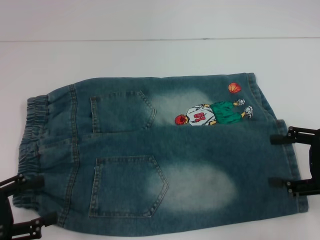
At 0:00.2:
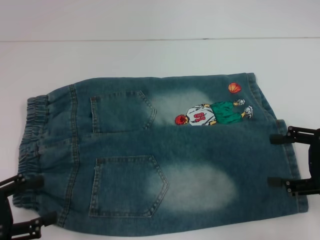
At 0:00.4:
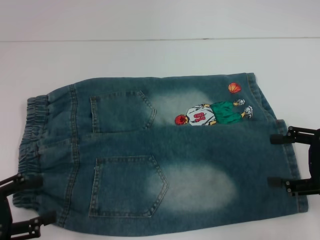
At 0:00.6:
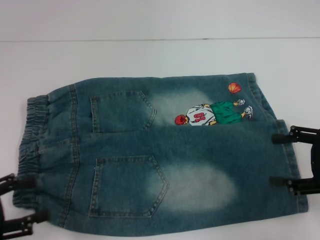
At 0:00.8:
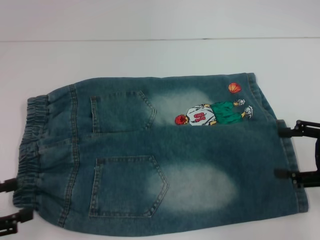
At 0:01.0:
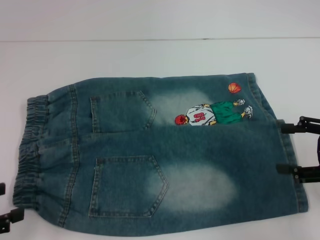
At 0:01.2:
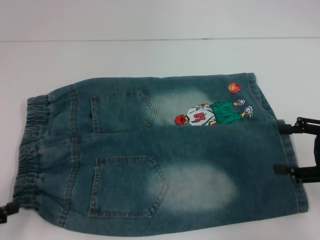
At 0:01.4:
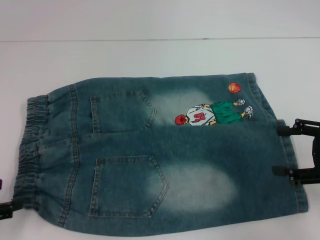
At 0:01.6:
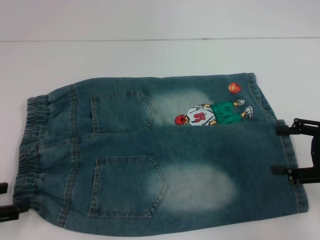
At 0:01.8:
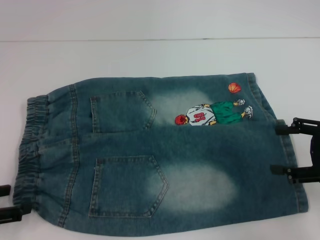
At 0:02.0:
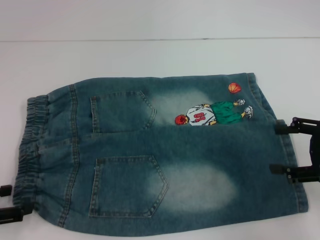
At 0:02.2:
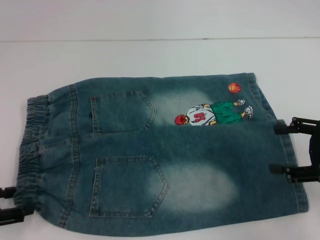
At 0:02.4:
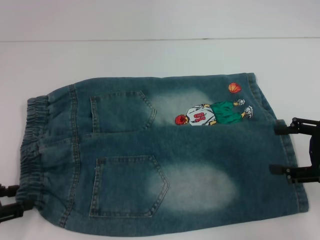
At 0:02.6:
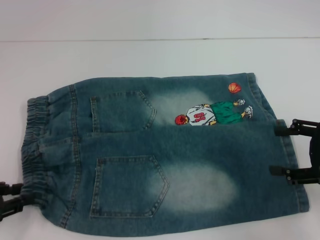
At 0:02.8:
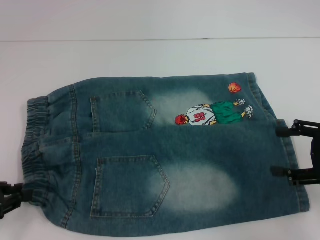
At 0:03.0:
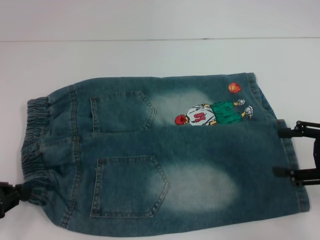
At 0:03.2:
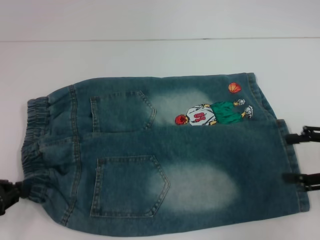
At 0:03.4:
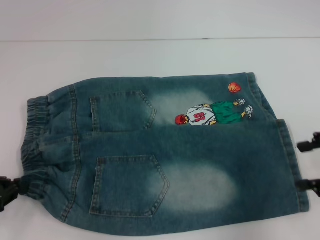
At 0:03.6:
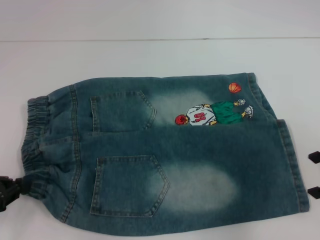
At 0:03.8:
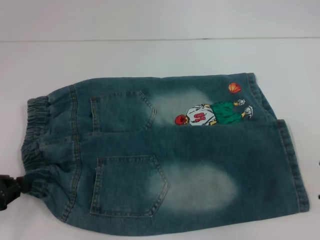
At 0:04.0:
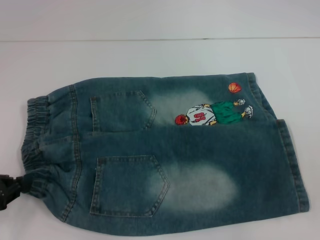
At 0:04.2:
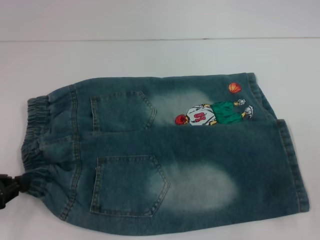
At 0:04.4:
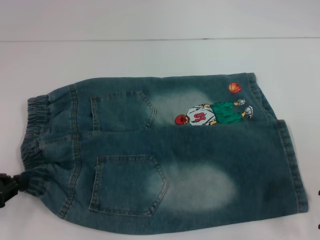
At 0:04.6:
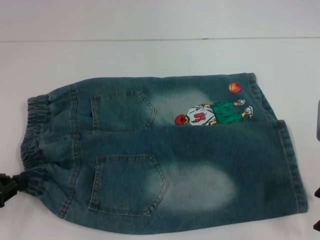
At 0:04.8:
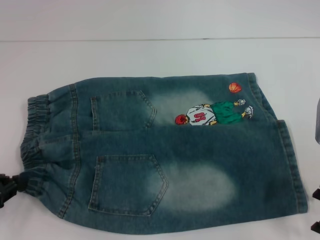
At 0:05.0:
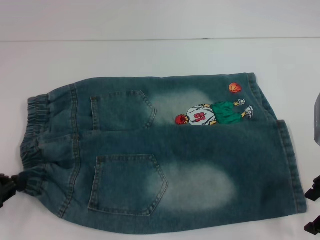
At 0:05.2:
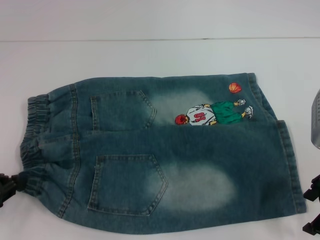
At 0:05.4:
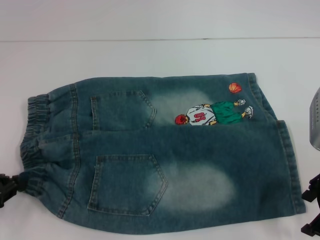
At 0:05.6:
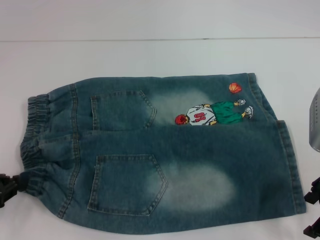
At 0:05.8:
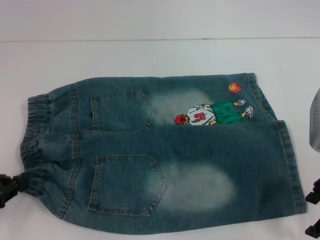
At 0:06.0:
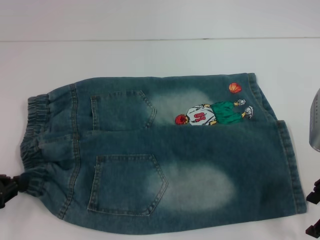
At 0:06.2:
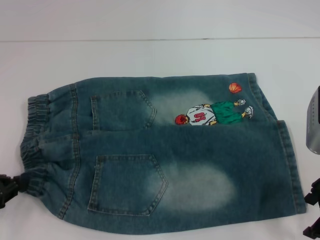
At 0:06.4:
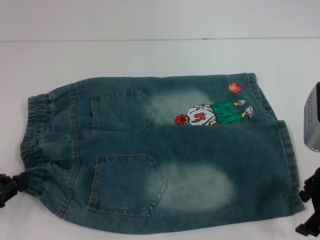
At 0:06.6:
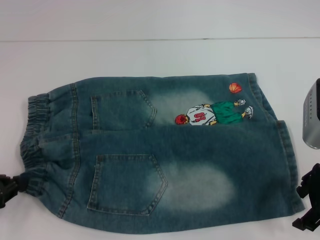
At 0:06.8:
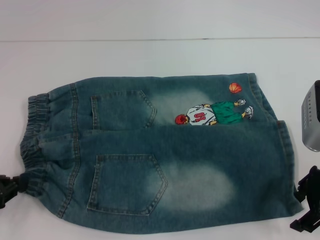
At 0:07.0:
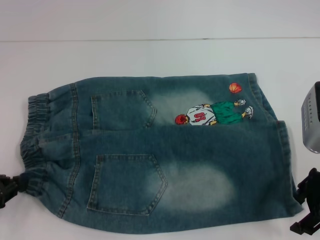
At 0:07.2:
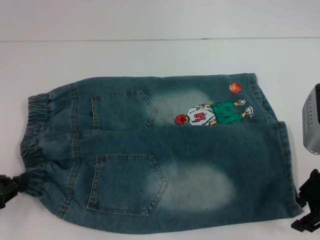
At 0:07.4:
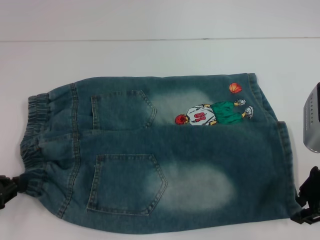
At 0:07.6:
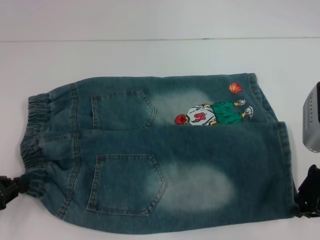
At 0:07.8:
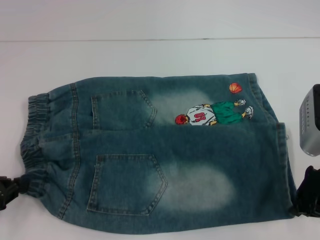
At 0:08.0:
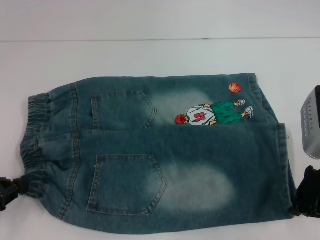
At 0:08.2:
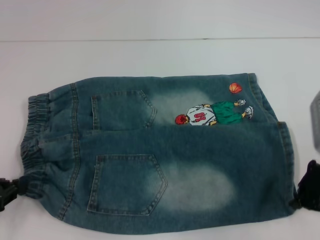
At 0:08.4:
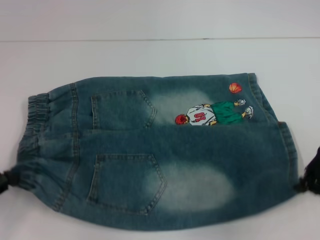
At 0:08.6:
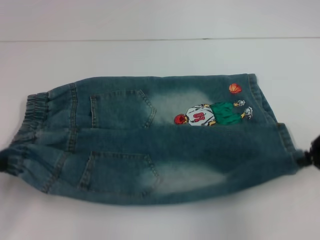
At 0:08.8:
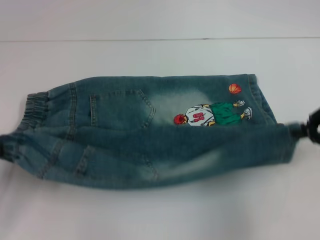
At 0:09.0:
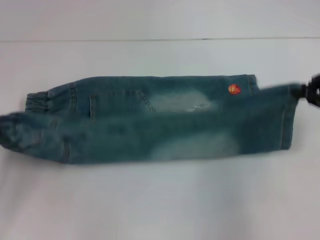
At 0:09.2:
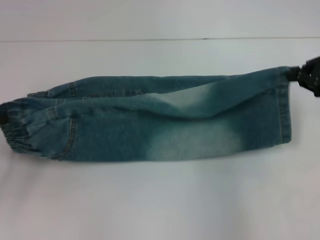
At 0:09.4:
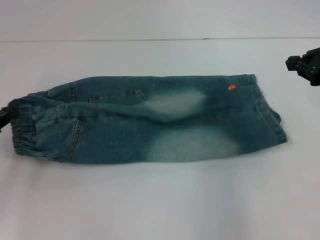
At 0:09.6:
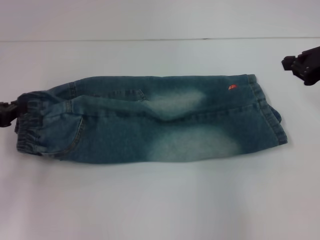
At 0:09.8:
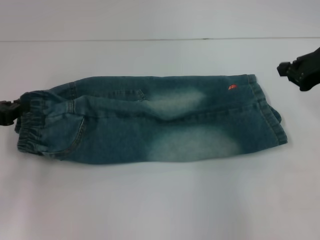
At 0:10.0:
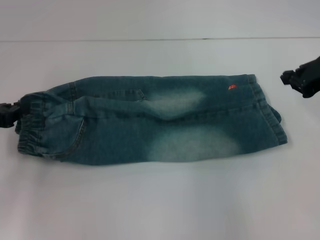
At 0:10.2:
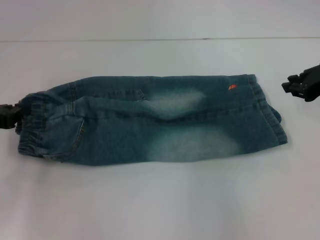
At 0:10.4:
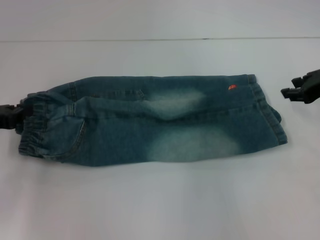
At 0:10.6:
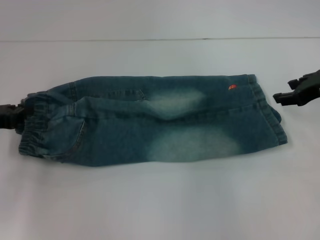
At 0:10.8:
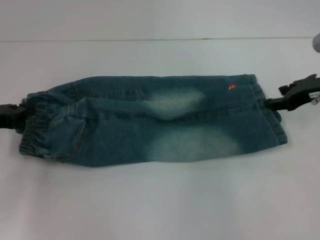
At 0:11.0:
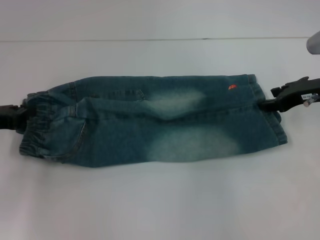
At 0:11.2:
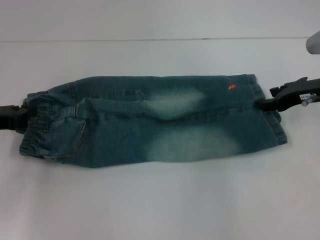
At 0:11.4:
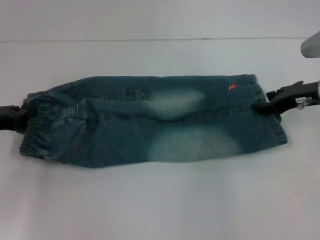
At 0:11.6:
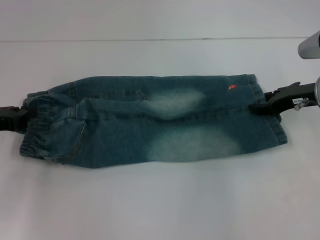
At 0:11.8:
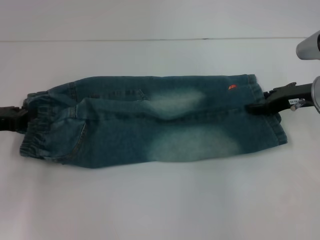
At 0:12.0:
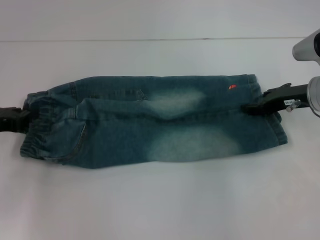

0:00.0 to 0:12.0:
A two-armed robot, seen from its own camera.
Step, 0:00.0 to 0:02.8: Hold the lower left waistband with your left hand.
Step, 0:03.0 to 0:07.4: Grab the lower right pant leg with your right hand.
0:01.6 to 0:03.0: The left gripper closes up.
0:03.0 to 0:04.4: The right gripper goes about 5 cm to the left.
0:04.4 to 0:06.0: The grippers make only small movements.
0:06.0 to 0:07.6: The right gripper closes up.
0:07.6 to 0:09.0: The right gripper is displaced to the right and upward by about 10 cm.
0:09.0 to 0:10.4: The left gripper is displaced forward by roughly 5 cm; the right gripper shifts by about 5 cm.
0:10.4 to 0:12.0: The right gripper heads downward, covering some 5 cm.

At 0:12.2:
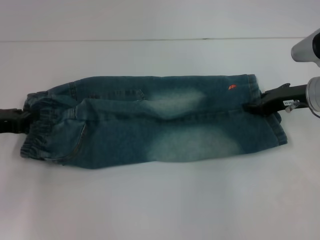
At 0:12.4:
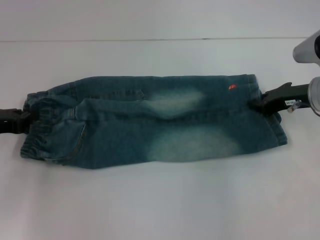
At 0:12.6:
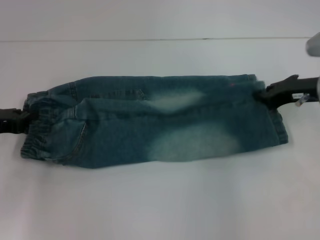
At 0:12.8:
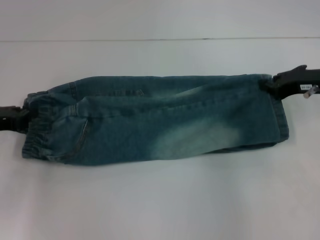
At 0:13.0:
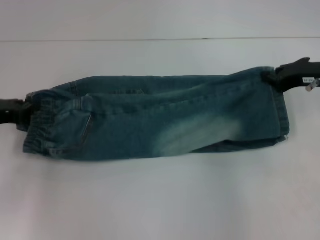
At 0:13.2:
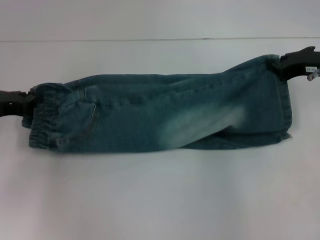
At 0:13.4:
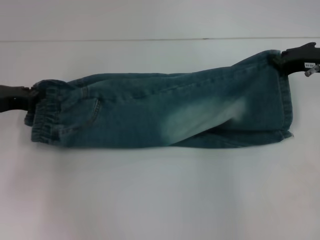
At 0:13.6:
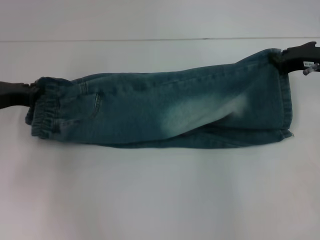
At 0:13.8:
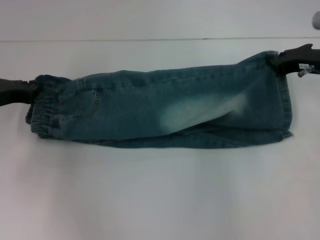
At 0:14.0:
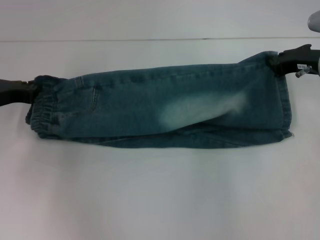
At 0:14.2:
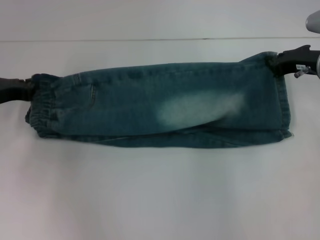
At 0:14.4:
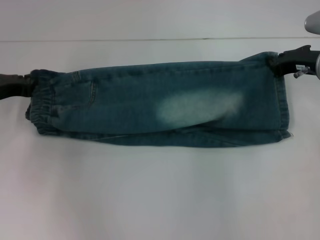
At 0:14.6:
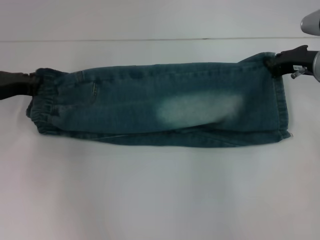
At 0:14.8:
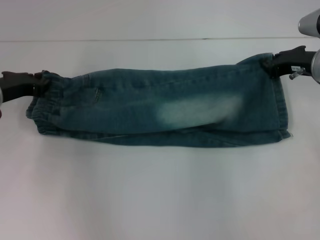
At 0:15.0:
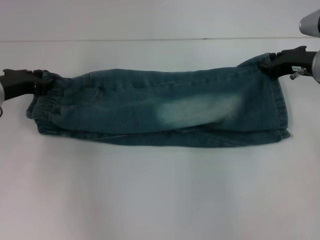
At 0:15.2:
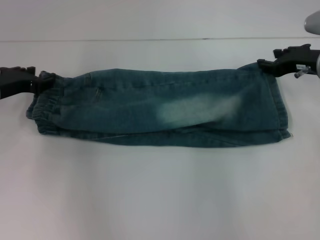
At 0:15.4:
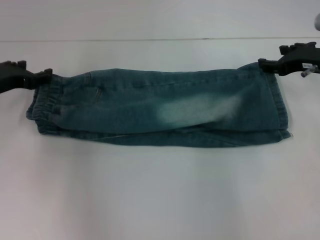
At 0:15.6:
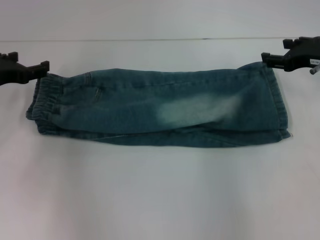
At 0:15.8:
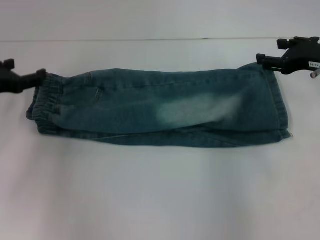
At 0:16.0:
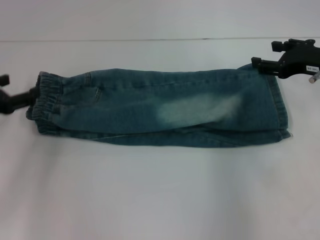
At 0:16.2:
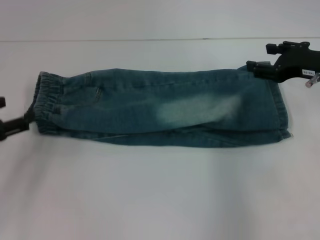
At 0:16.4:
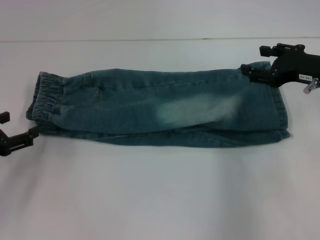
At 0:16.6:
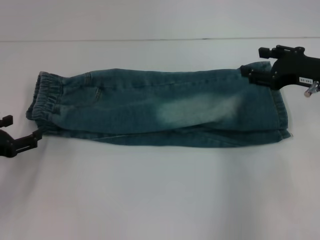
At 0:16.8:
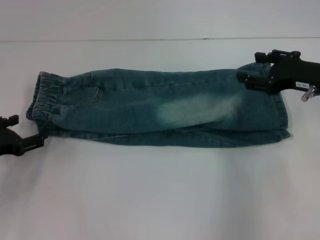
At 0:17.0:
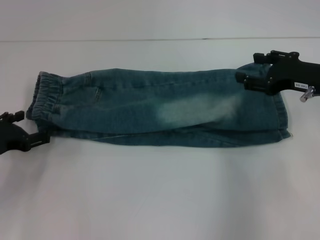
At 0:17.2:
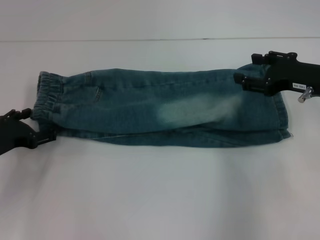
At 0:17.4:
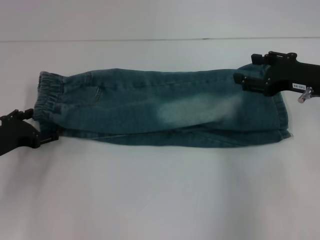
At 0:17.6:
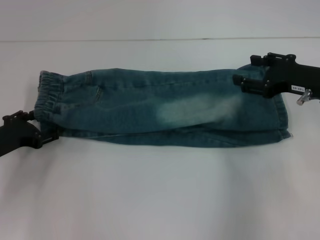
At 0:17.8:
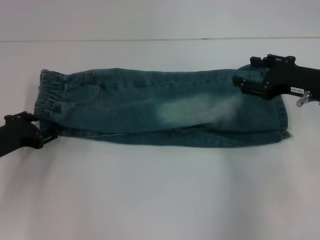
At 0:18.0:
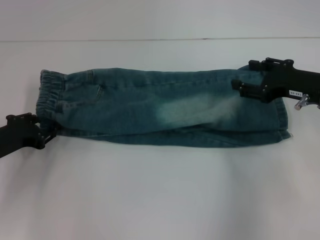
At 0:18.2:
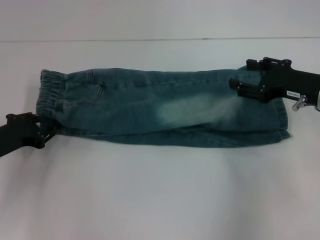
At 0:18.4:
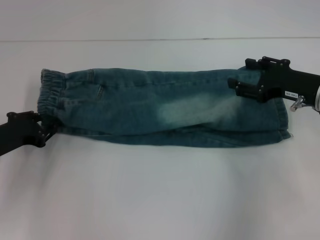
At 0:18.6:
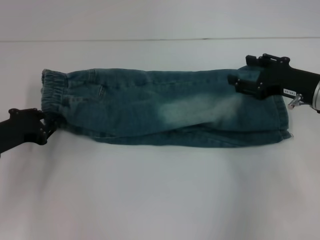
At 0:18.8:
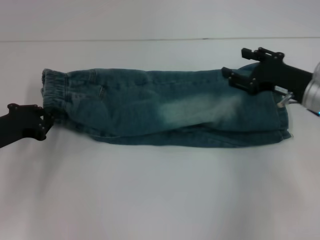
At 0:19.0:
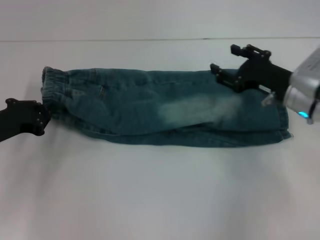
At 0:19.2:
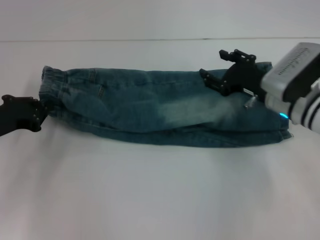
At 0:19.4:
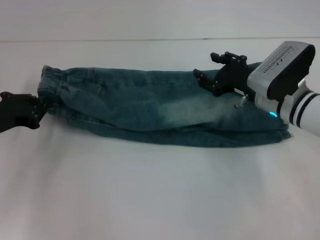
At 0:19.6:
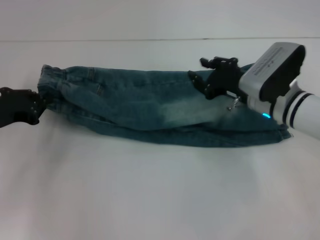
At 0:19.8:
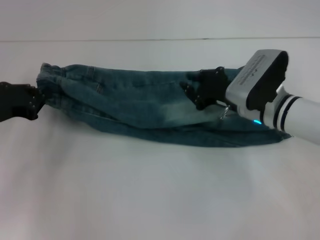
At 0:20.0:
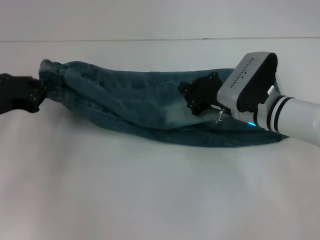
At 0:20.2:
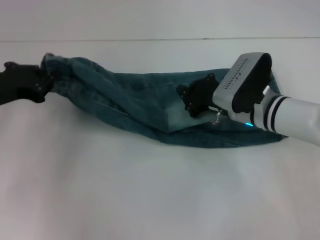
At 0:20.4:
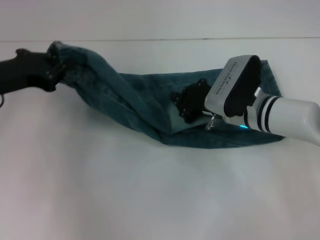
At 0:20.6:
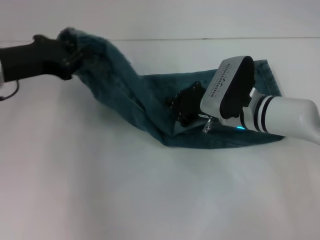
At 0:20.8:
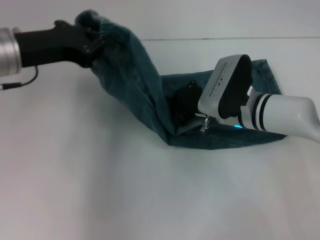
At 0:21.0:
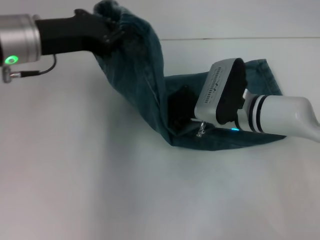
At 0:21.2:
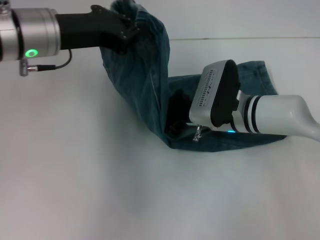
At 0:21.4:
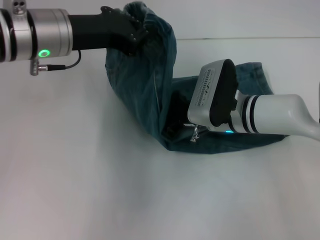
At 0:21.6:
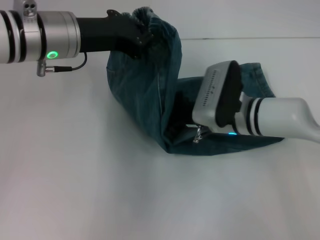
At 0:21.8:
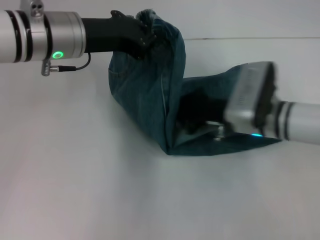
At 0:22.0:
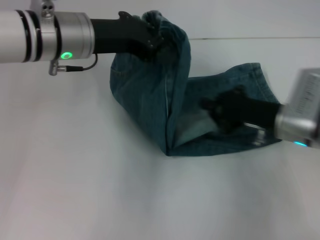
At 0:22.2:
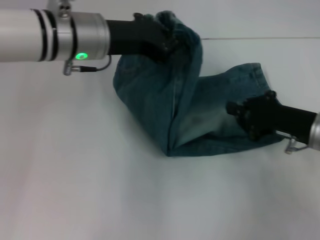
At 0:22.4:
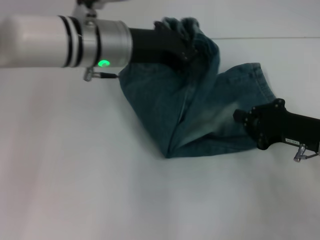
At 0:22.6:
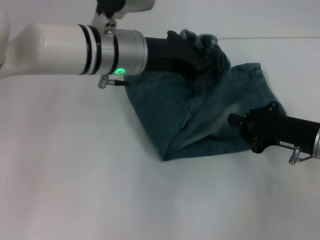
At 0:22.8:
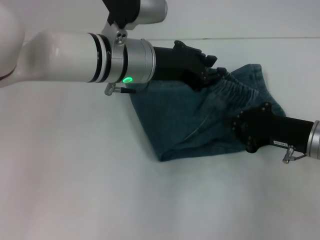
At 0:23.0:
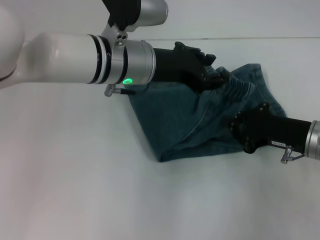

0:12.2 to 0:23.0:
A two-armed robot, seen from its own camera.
Step, 0:12.2 to 0:15.2: Fold upward with your right hand.
Step, 0:15.4 to 0:18.6: Hold the waistband with your left hand.
Step, 0:18.8 to 0:21.8: Press the middle of the pants with your right hand.
0:12.2 to 0:13.8: The left gripper shifts about 5 cm forward. Meanwhile the right gripper closes its fingers.
0:13.8 to 0:15.2: There are only small adjustments of the grippers.
0:15.2 to 0:16.8: The right gripper moves backward, about 5 cm, and opens up. The left gripper is displaced backward and downward by approximately 10 cm, and opens its fingers.
0:16.8 to 0:18.4: The left gripper closes up.
0:18.4 to 0:20.0: The right gripper goes some 10 cm to the left and downward, and closes up. The left gripper moves upward, roughly 5 cm, and closes.
0:20.0 to 0:21.4: The left gripper heads to the right, upward and forward, covering roughly 20 cm.
0:21.4 to 0:23.0: The left gripper is displaced to the right by roughly 10 cm, while the right gripper travels to the right and backward by about 15 cm.
